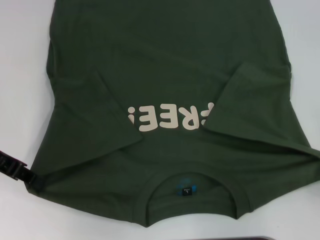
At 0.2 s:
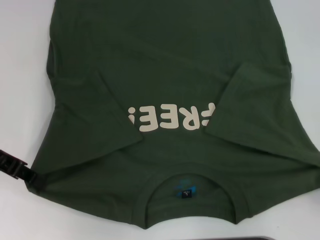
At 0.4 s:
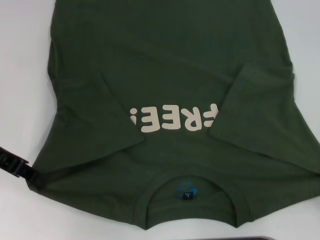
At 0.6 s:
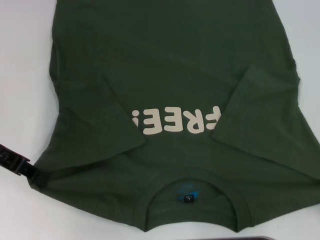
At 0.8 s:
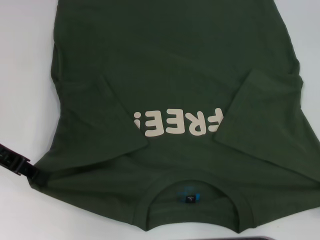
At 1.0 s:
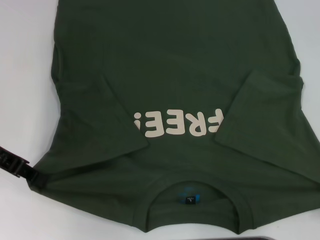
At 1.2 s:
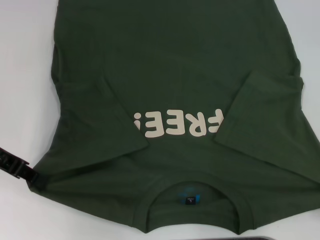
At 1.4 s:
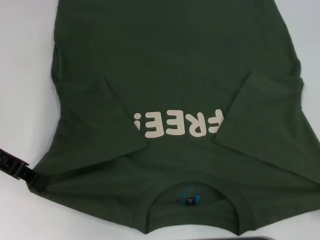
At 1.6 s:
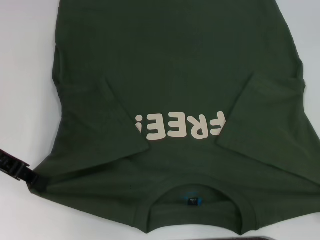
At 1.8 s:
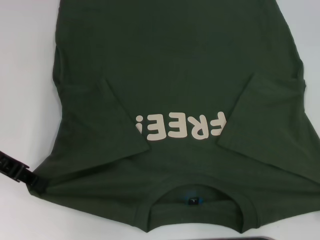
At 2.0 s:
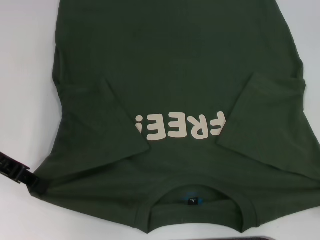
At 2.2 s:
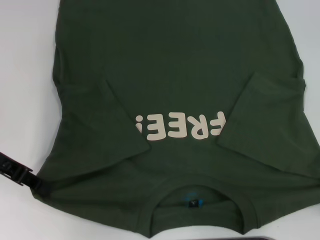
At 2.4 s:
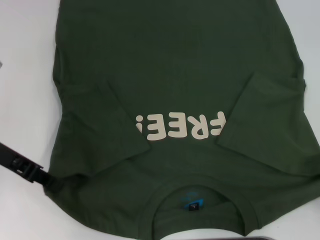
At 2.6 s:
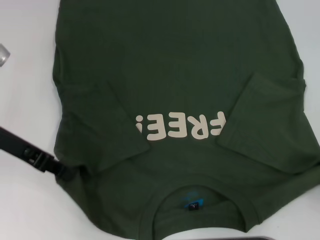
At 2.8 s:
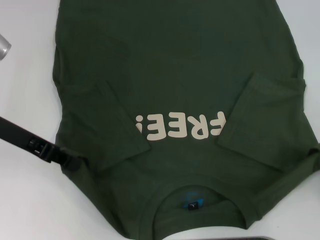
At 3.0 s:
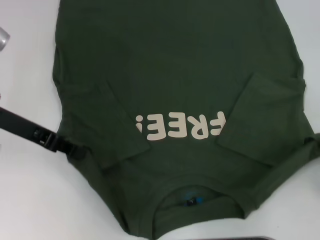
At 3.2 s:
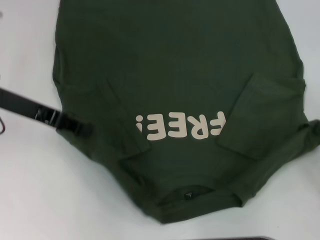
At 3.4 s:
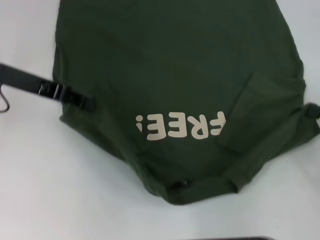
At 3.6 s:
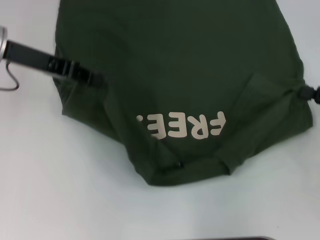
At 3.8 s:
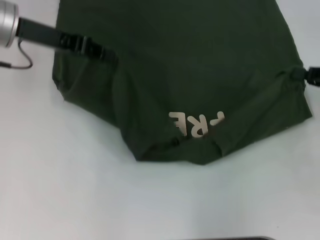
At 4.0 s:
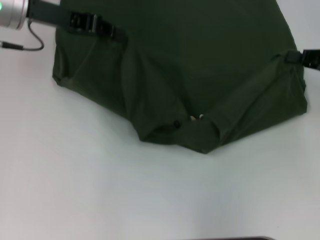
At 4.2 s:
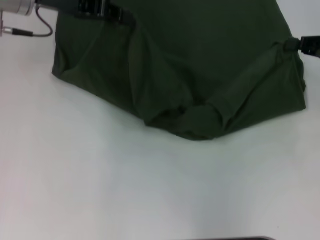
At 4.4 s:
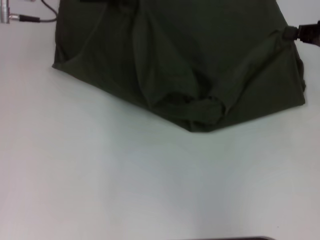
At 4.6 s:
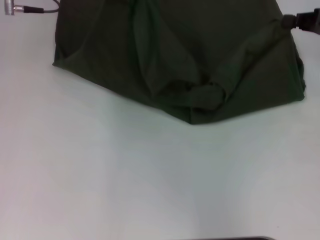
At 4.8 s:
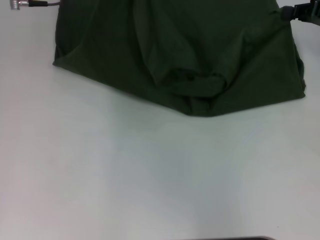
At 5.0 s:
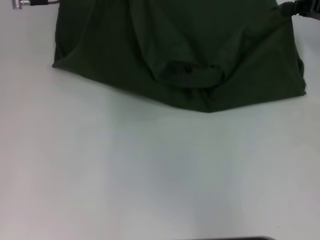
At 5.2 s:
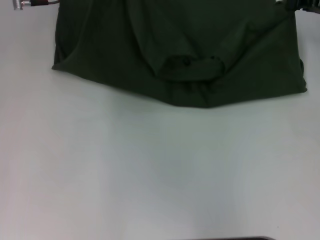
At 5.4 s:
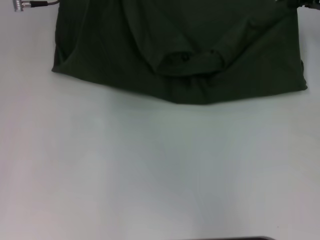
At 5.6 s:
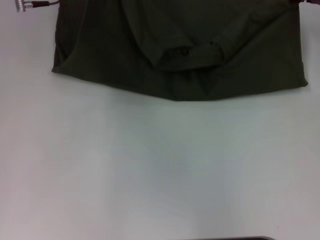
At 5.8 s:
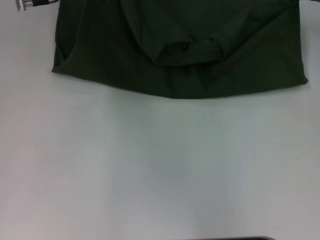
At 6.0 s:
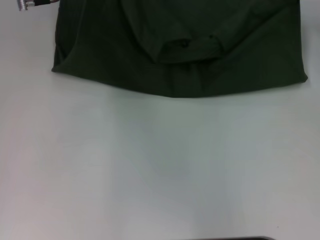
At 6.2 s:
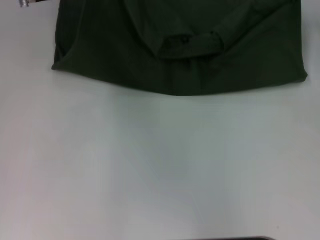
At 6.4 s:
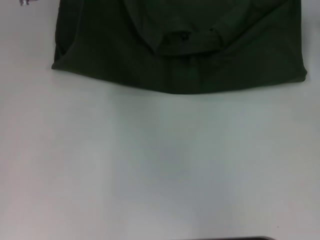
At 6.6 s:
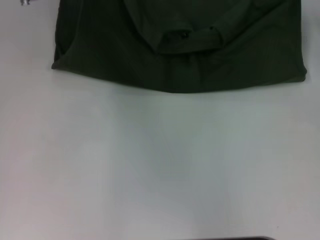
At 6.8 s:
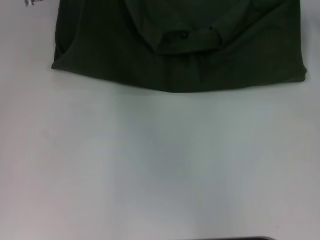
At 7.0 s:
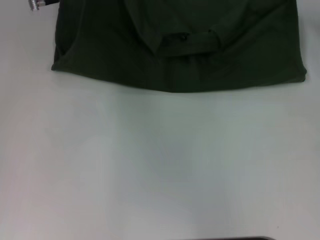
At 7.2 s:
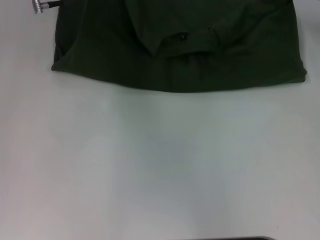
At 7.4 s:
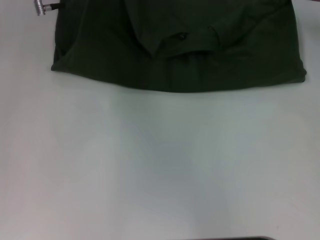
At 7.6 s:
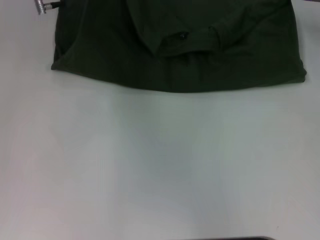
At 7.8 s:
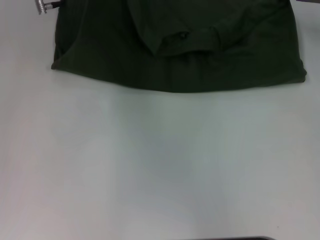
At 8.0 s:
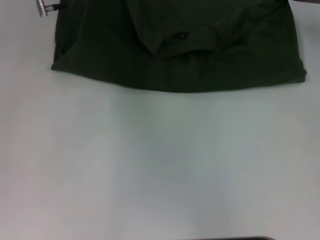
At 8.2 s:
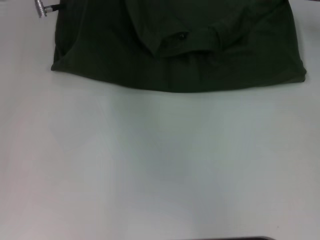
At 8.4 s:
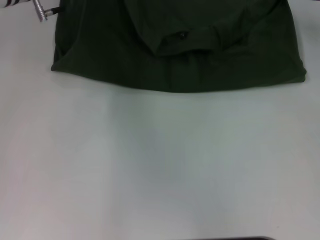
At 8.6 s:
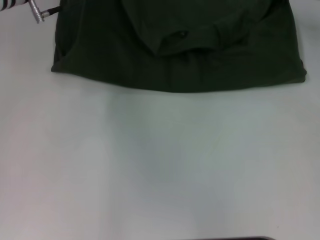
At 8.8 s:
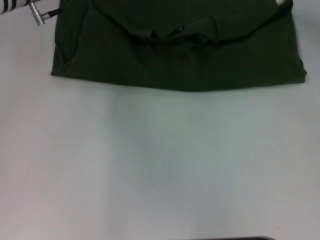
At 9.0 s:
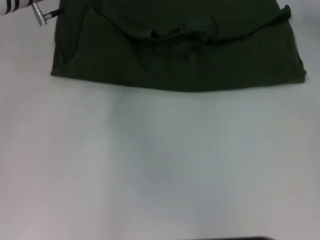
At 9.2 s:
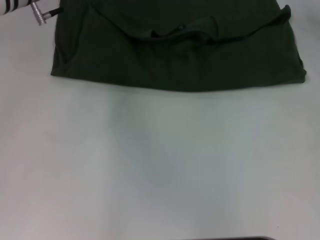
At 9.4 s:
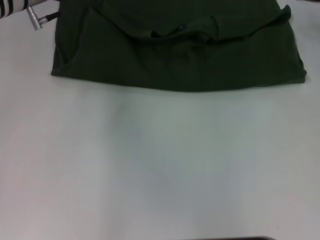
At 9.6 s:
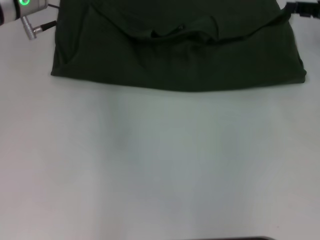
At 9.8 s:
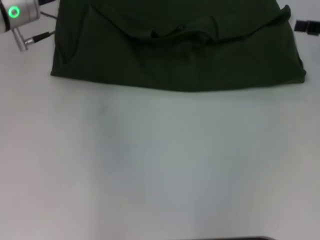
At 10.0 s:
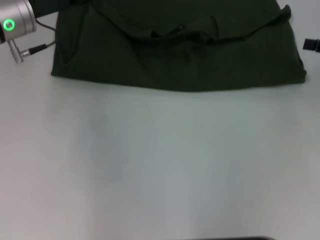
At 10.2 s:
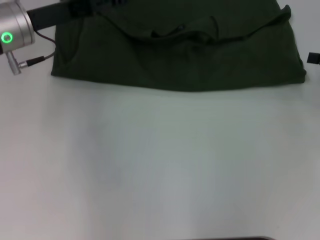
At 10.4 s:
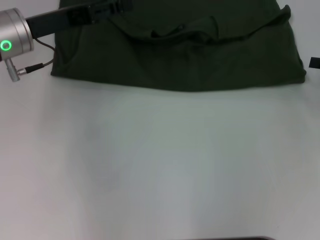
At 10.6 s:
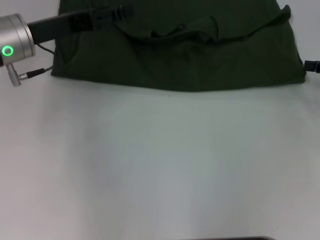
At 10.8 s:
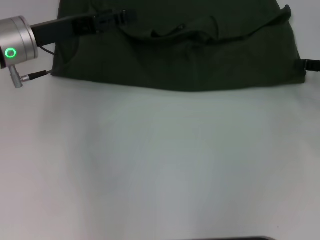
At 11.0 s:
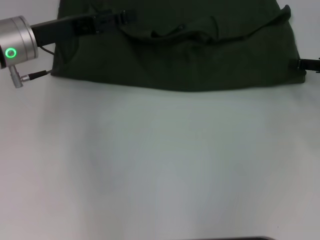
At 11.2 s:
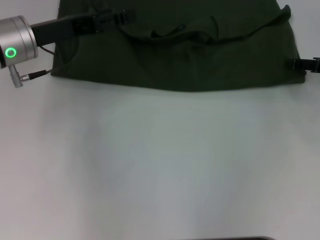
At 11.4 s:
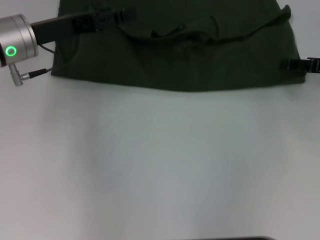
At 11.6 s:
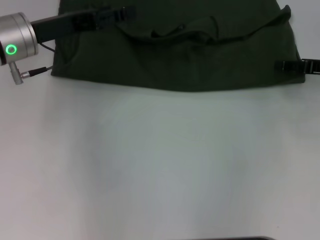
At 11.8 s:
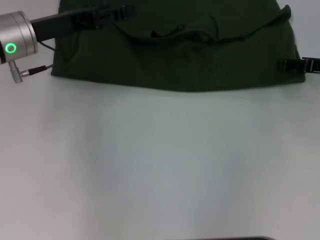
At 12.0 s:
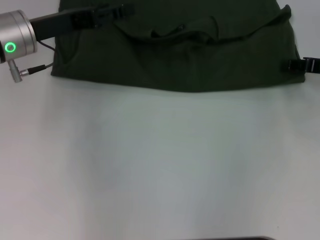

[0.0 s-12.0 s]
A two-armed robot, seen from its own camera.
Step, 0.0 to 9.4 s: Fold the clothes with your left hand.
Step, 0.0 to 9.4 s: Fold the clothes with your right hand.
0.0 to 1.6 s: The right gripper is displaced backward by approximately 5 cm.
1.6 to 3.0 s: The right gripper moves forward, about 10 cm.
3.0 to 4.4 s: The right gripper shifts approximately 20 cm forward and upward; the left gripper is displaced forward, upward and to the right by approximately 15 cm.
4.4 to 6.0 s: The right gripper shifts some 5 cm forward.
6.0 to 7.6 s: The grippers make only small movements.
7.6 to 9.0 s: The right gripper opens its fingers; the left gripper opens up.
9.0 to 10.4 s: The left gripper is displaced backward by roughly 5 cm, and opens. Meanwhile the right gripper moves backward and to the right, some 15 cm.

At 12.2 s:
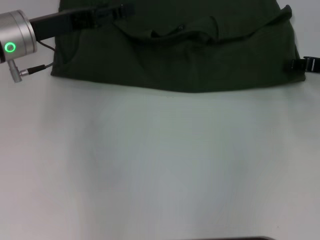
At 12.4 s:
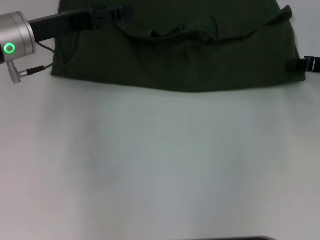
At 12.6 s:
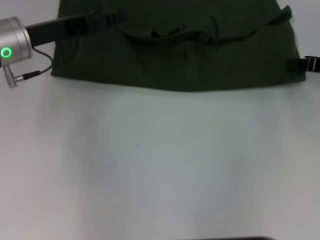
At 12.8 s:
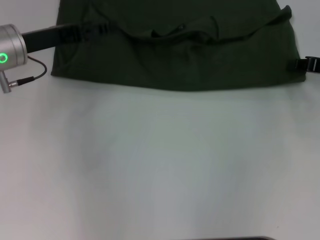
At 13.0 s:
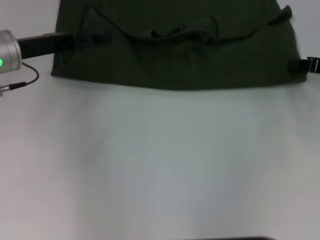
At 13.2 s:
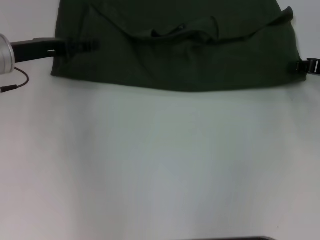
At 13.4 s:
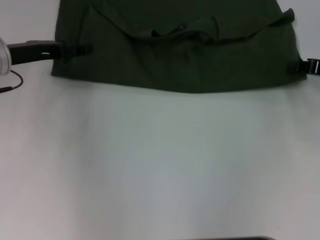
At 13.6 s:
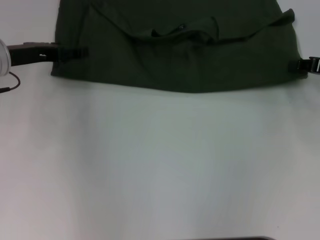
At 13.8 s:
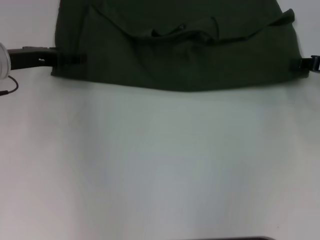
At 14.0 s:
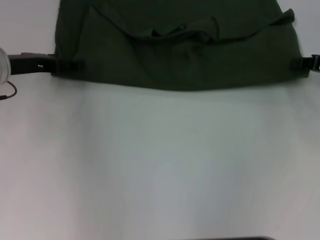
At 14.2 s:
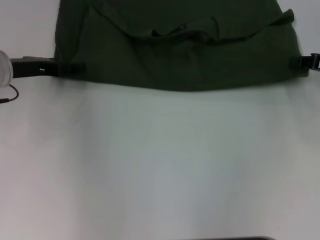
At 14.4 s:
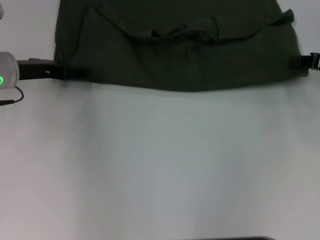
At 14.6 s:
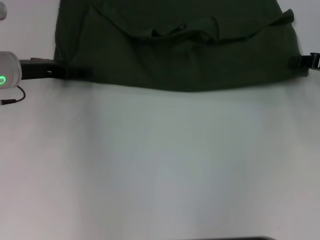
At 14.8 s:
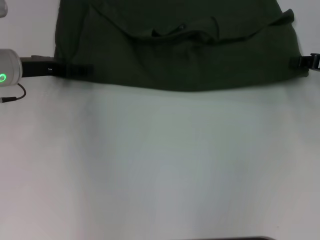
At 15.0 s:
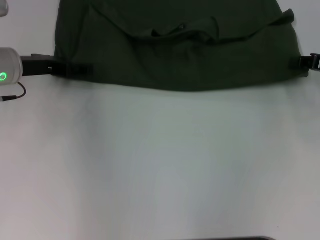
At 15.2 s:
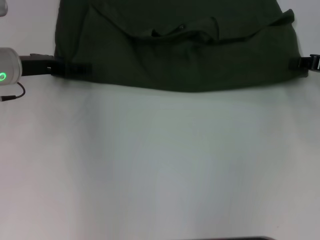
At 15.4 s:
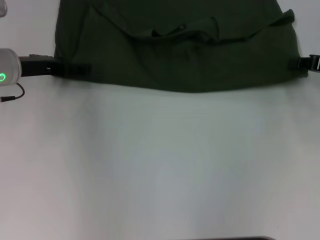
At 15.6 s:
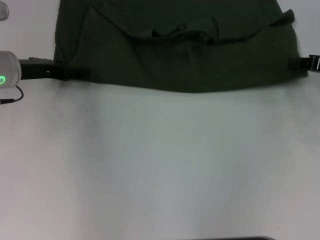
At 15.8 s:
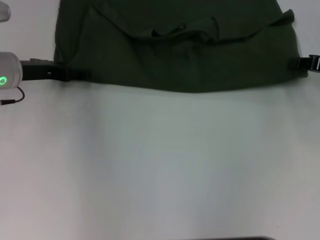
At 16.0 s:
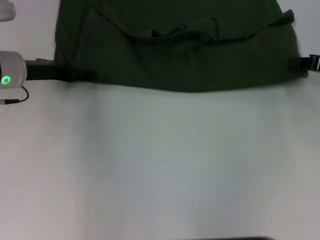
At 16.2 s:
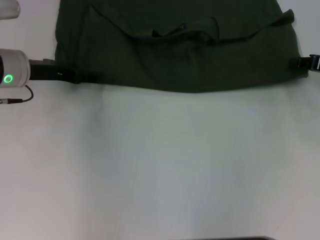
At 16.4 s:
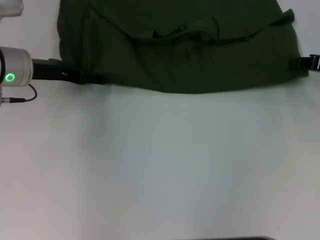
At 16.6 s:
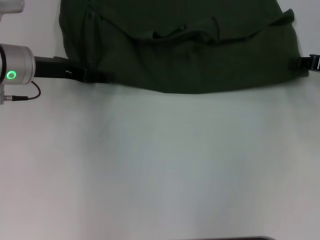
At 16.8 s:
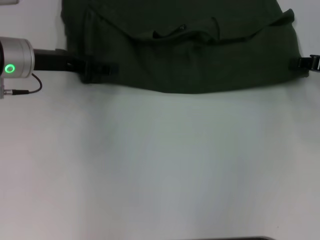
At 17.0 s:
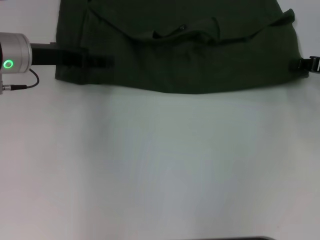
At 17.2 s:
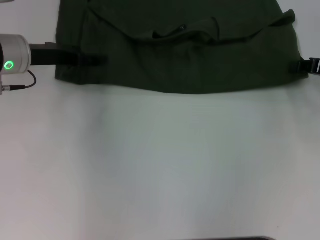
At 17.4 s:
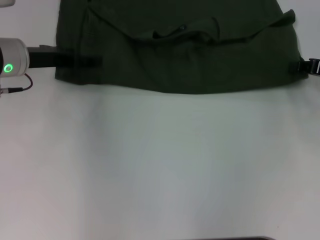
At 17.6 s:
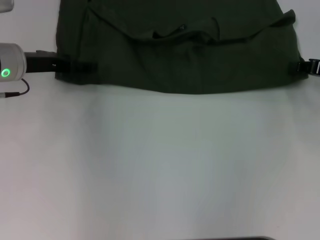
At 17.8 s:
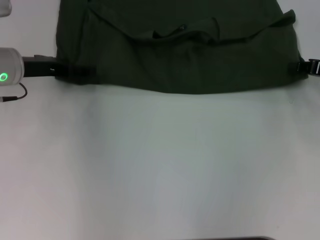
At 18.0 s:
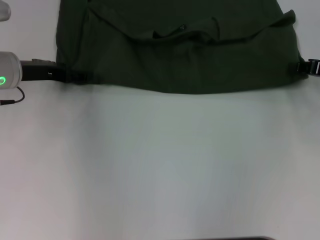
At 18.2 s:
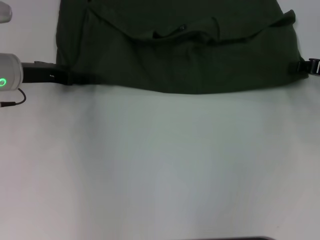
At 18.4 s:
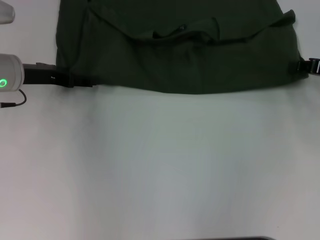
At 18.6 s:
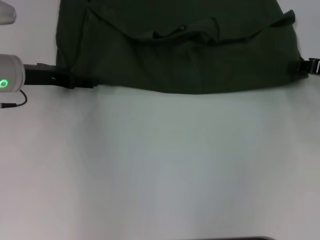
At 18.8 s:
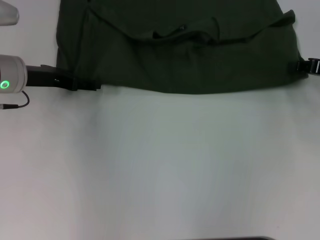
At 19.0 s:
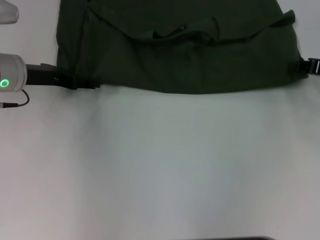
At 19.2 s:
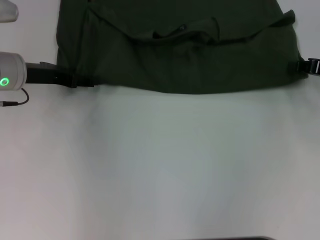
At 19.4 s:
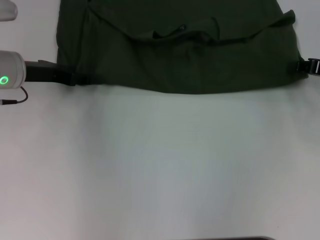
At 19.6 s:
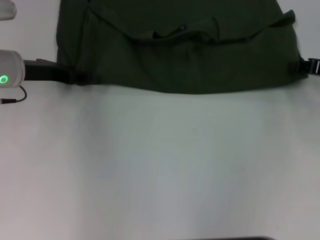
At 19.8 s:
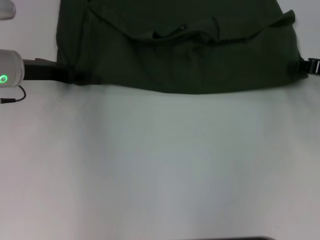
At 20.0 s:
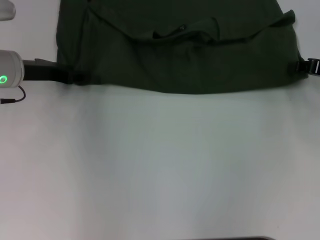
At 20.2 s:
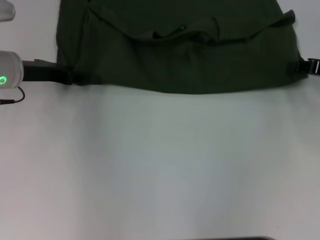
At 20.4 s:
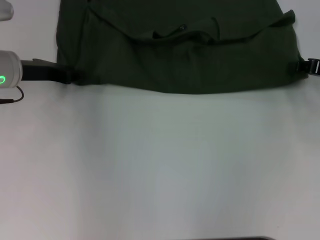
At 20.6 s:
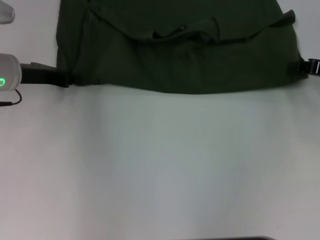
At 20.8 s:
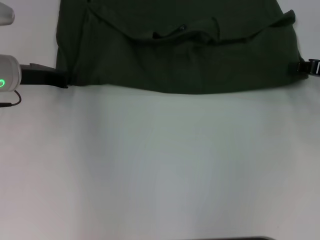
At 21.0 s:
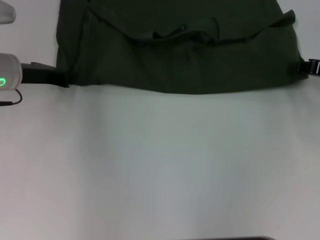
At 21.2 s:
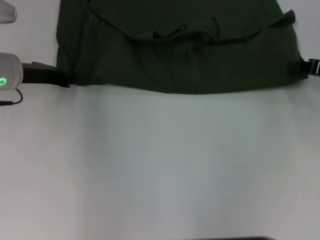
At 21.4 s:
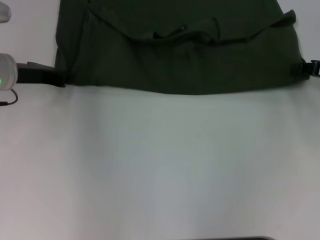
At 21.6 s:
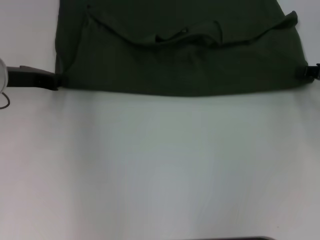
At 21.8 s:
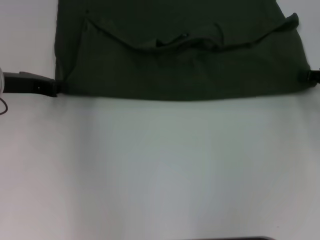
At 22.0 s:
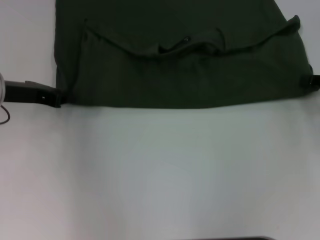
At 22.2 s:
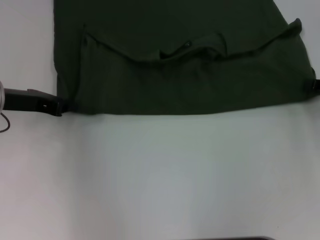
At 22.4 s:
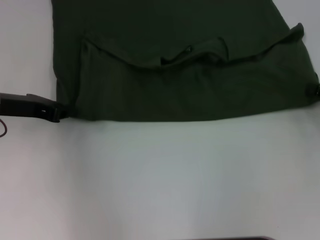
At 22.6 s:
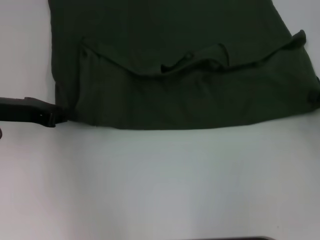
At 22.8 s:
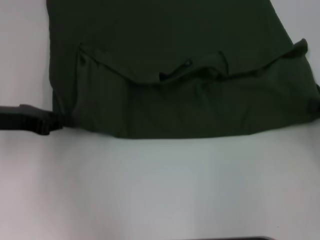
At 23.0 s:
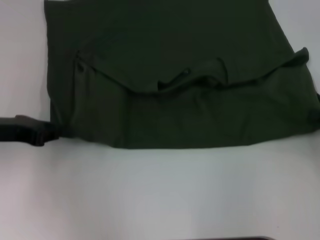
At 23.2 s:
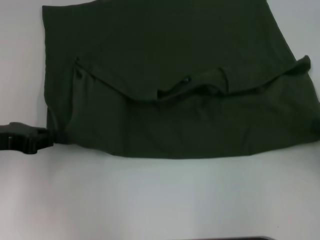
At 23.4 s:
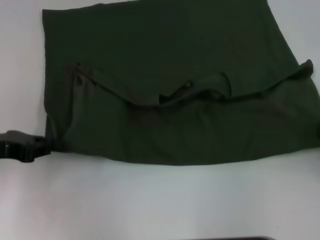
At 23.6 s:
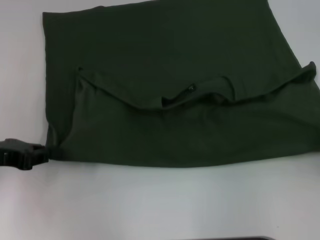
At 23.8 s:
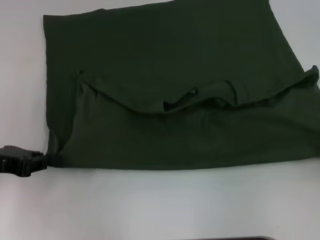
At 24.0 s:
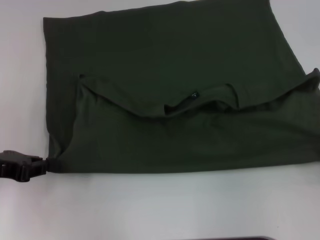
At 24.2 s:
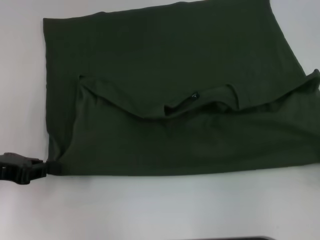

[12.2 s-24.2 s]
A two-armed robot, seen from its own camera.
12.2 to 13.8 s: The left gripper ends up about 5 cm from where it was.
13.8 to 18.2 s: The grippers make only small movements.
18.2 to 19.8 s: The left gripper closes.
19.8 to 21.2 s: The left gripper closes up.
21.2 to 22.6 s: The two grippers go approximately 5 cm backward.
22.6 to 24.2 s: Both grippers move backward, about 10 cm.
